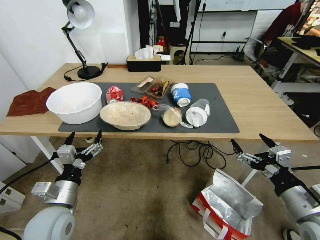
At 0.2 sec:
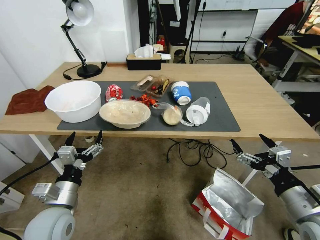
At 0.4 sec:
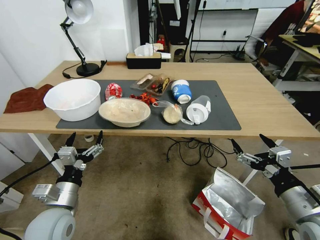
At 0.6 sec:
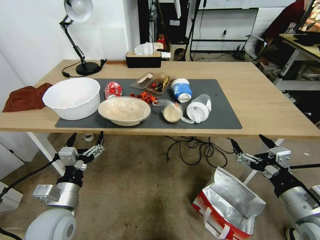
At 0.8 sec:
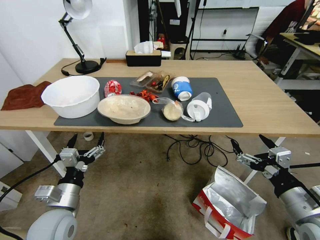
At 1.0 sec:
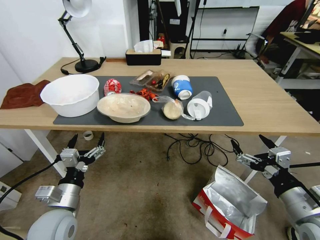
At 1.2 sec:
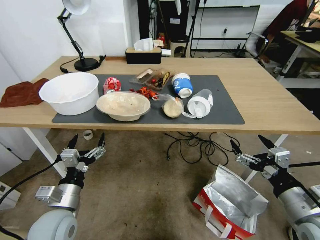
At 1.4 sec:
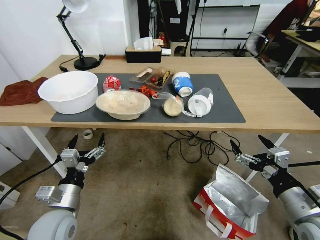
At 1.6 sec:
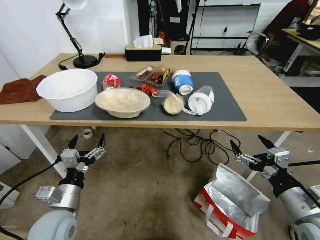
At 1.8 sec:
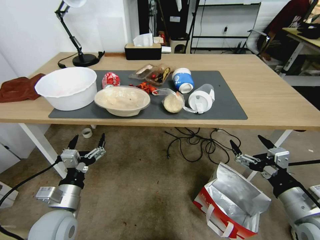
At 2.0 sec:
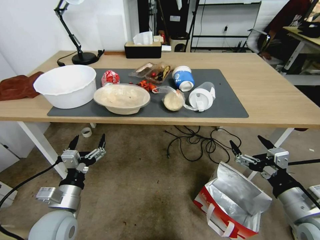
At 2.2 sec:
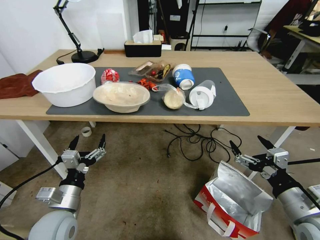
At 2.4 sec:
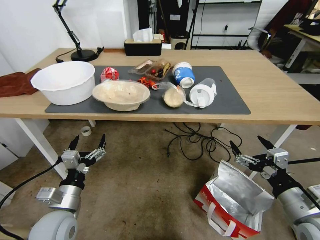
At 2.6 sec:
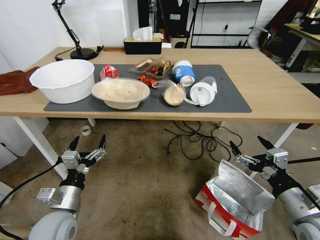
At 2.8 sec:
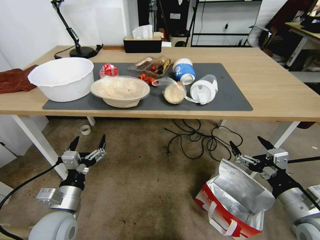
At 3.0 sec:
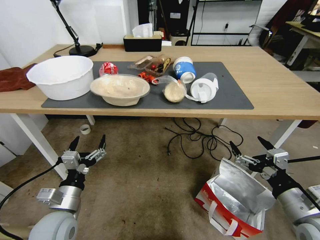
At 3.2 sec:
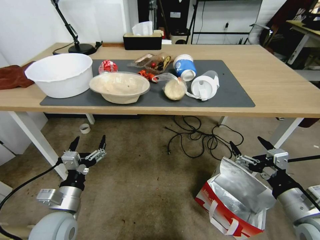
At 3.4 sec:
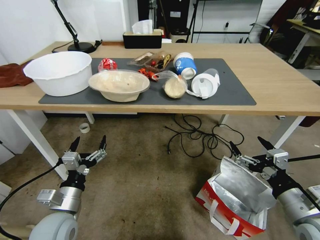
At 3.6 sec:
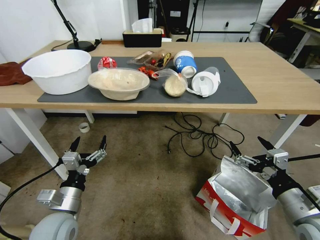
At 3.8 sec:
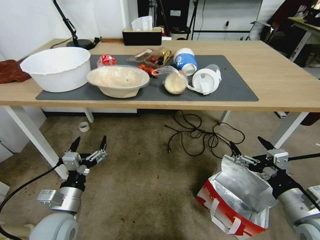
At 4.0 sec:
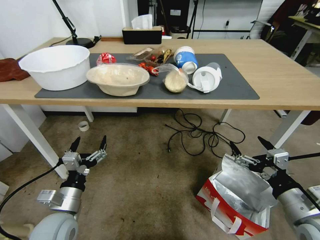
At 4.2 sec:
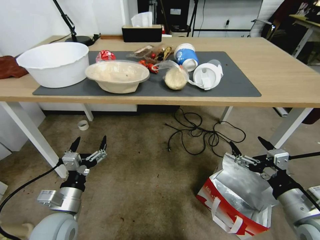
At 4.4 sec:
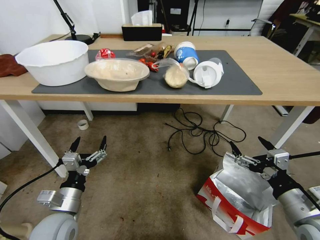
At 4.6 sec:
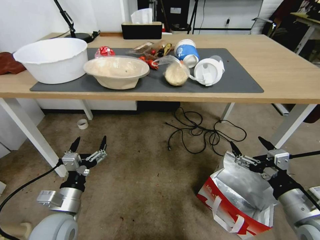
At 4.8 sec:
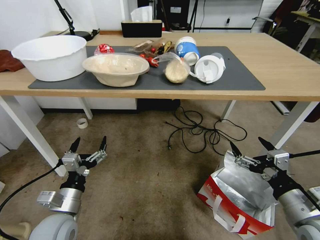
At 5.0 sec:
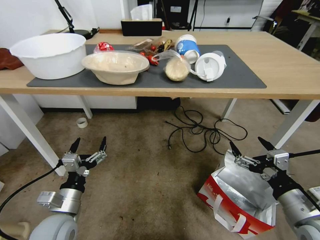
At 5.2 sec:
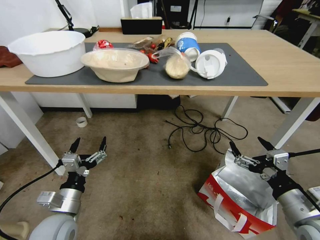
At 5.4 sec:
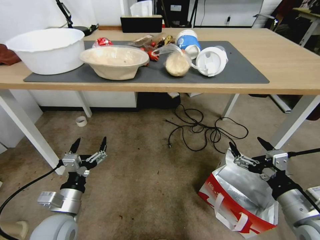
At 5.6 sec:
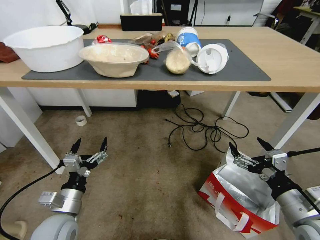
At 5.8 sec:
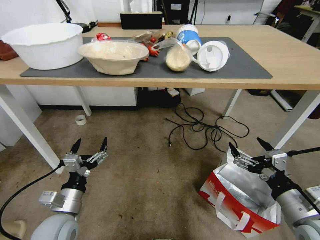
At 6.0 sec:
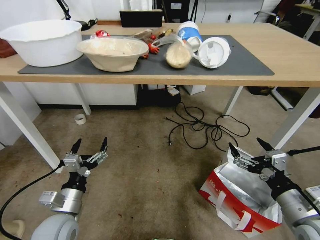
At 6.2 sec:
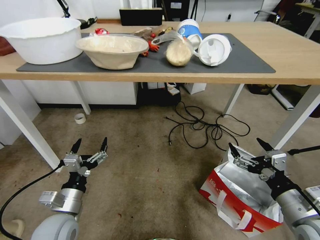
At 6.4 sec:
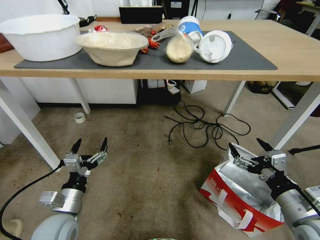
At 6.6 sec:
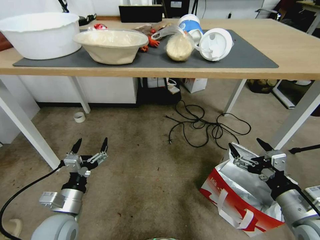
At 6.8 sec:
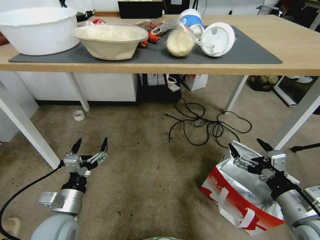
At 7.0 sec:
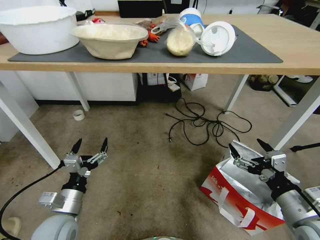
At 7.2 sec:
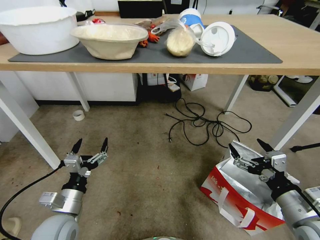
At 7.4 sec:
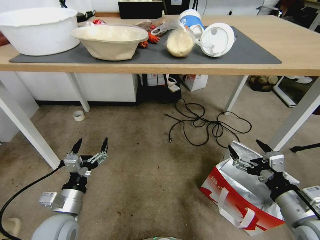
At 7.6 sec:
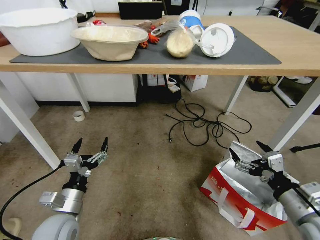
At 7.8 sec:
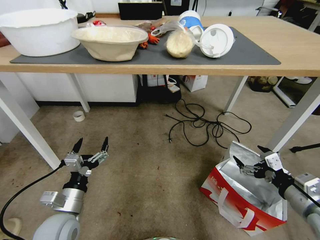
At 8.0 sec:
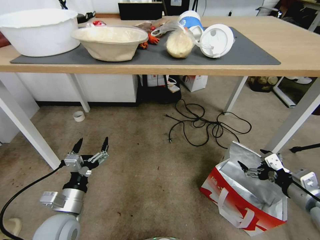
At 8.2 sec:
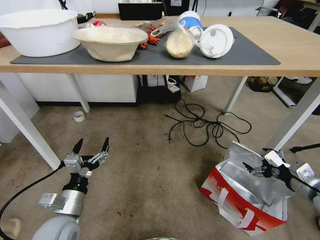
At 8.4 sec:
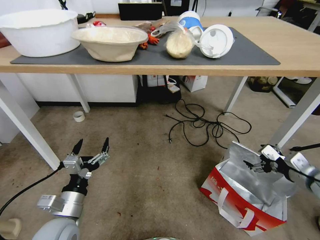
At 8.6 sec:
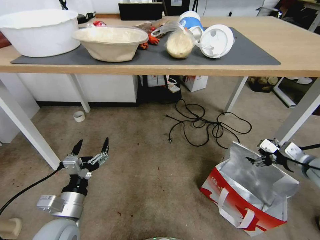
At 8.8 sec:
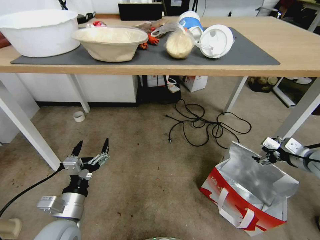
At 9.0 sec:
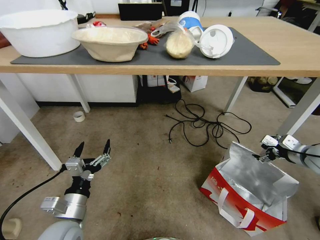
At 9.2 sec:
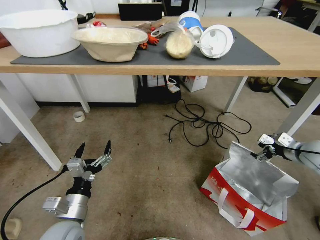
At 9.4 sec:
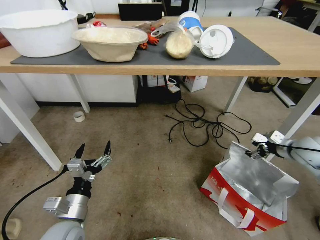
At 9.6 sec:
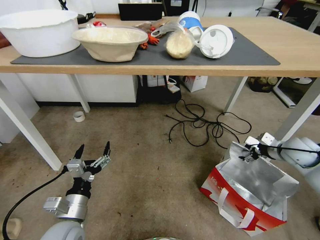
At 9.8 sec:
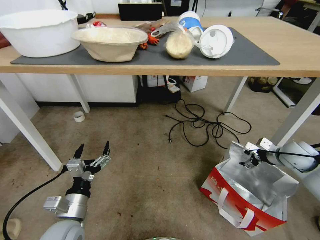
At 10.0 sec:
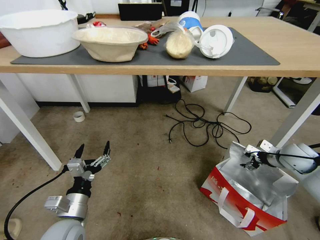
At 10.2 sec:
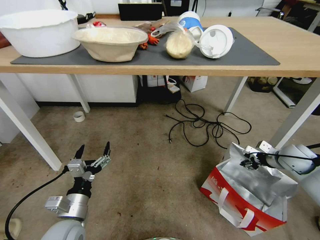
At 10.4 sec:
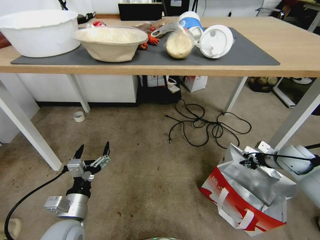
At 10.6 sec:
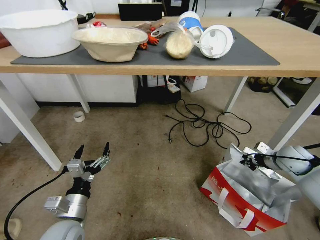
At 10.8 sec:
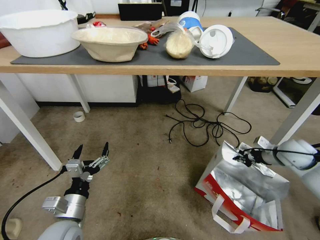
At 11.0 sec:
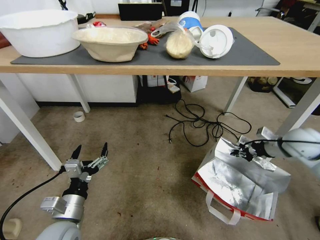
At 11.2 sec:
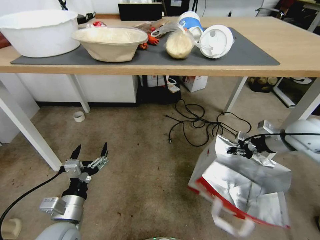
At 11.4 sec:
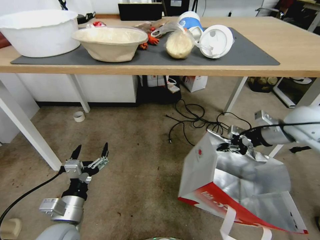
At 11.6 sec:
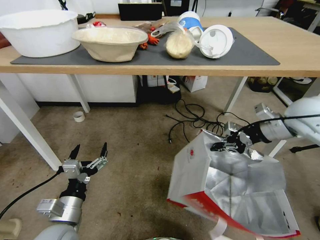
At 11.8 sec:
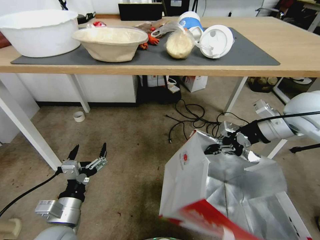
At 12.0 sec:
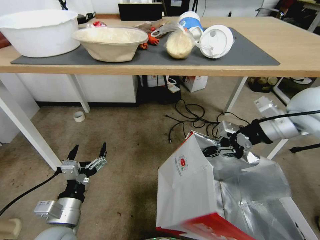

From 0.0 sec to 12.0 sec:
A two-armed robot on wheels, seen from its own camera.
Task of the whole recording: Pick up the food delivery bag from the floor and place it on the table.
From 7.6 sec to 9.0 sec: The right gripper heads forward and to the right, covering some 20 cm.
From 9.0 sec to 10.4 sec: The right gripper moves downward, approximately 10 cm, and closes.
From 10.4 sec to 12.0 sec: The right gripper travels upward and to the left by some 30 cm.

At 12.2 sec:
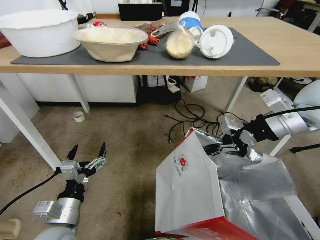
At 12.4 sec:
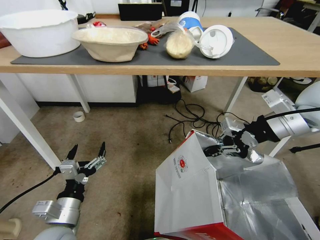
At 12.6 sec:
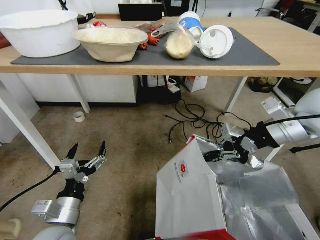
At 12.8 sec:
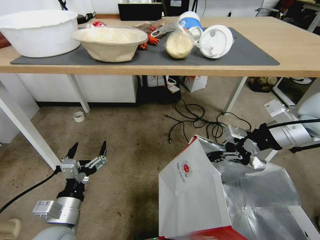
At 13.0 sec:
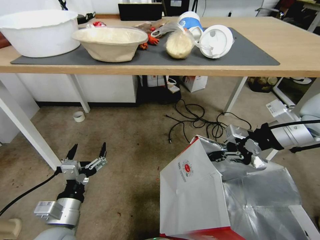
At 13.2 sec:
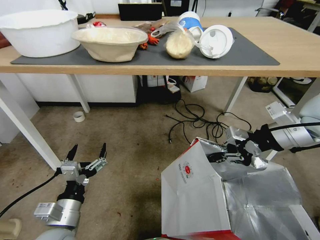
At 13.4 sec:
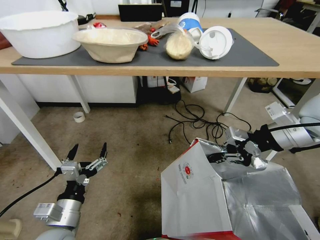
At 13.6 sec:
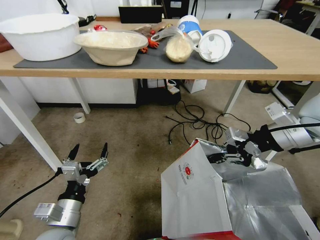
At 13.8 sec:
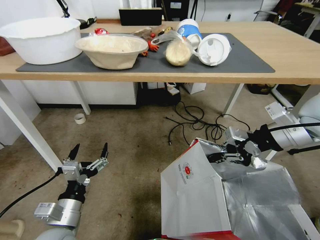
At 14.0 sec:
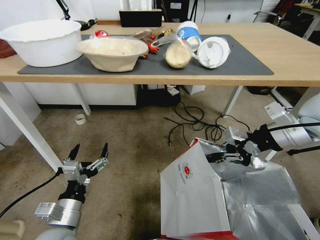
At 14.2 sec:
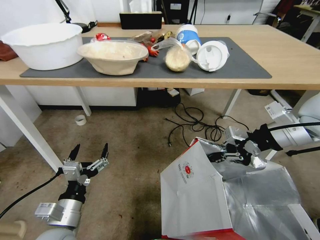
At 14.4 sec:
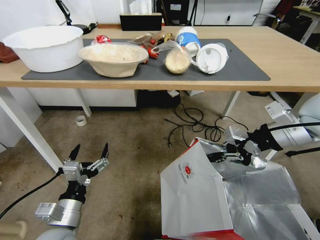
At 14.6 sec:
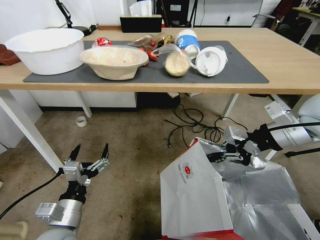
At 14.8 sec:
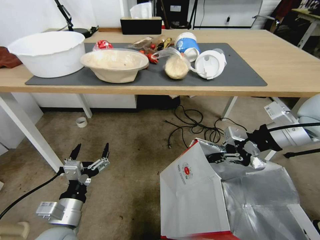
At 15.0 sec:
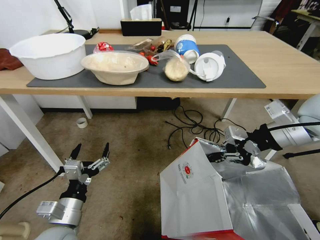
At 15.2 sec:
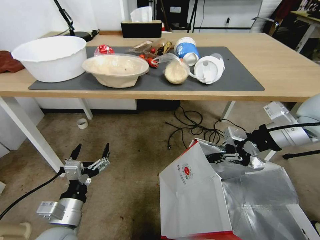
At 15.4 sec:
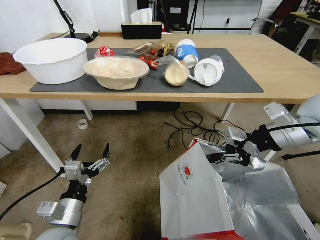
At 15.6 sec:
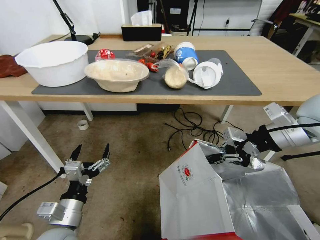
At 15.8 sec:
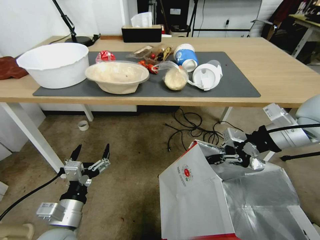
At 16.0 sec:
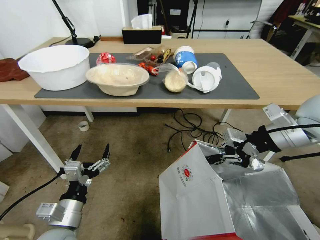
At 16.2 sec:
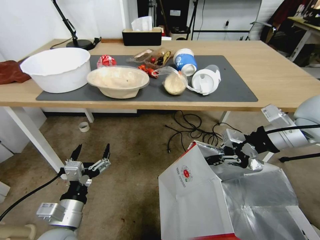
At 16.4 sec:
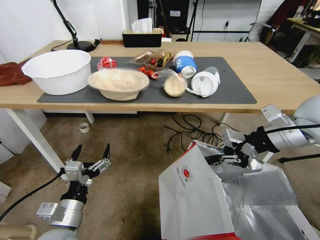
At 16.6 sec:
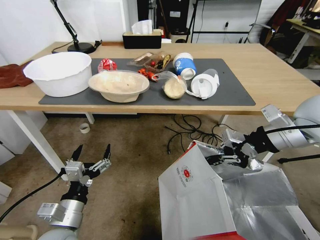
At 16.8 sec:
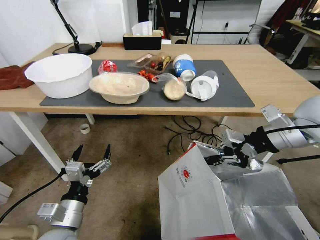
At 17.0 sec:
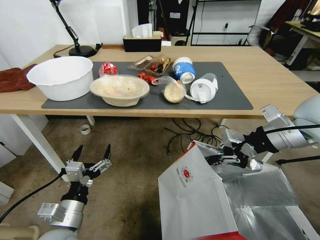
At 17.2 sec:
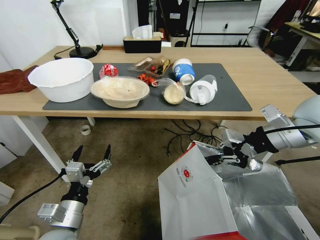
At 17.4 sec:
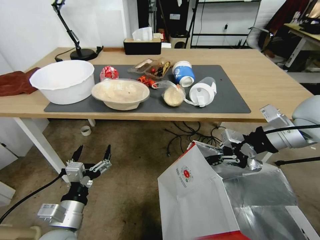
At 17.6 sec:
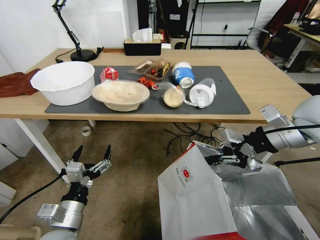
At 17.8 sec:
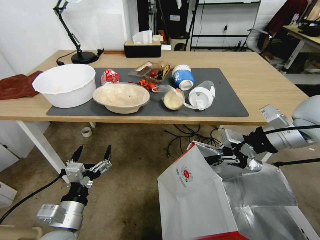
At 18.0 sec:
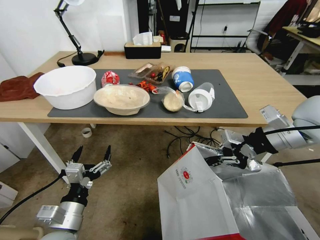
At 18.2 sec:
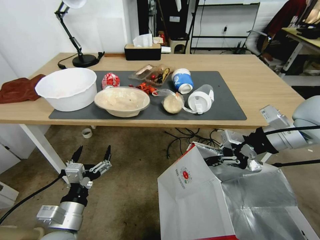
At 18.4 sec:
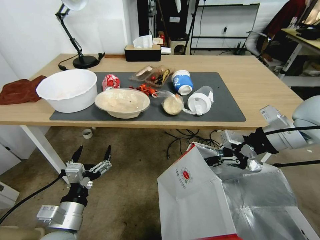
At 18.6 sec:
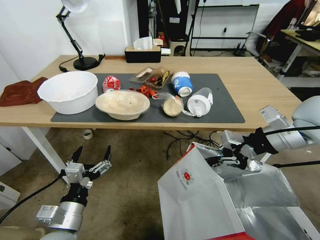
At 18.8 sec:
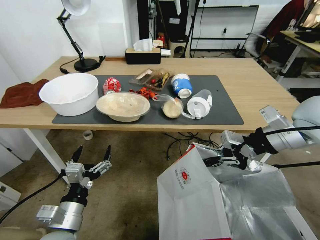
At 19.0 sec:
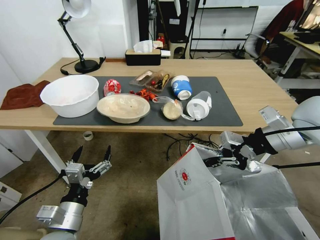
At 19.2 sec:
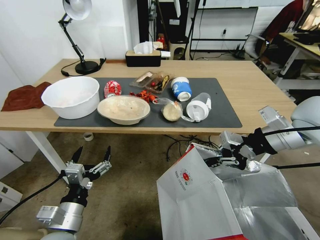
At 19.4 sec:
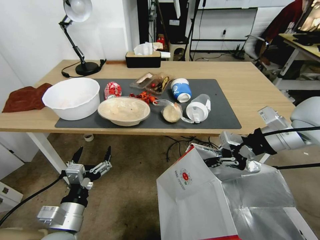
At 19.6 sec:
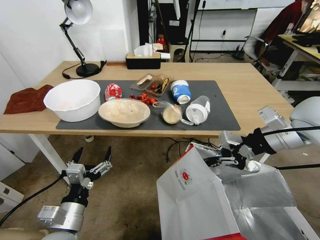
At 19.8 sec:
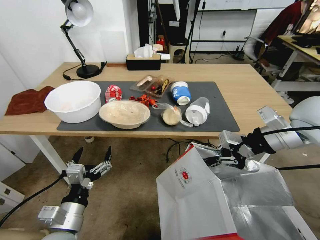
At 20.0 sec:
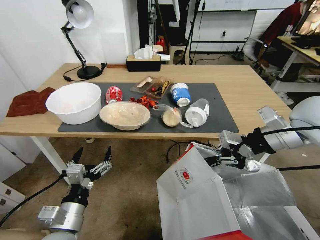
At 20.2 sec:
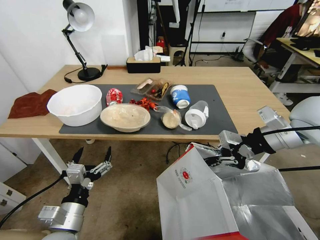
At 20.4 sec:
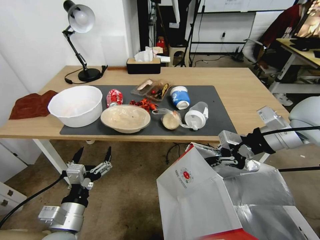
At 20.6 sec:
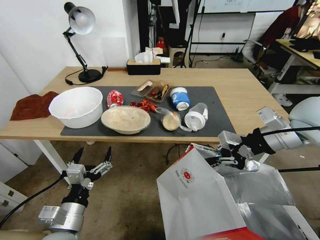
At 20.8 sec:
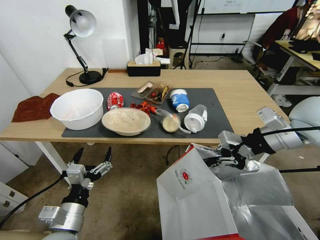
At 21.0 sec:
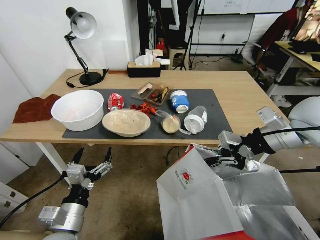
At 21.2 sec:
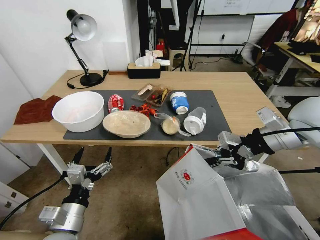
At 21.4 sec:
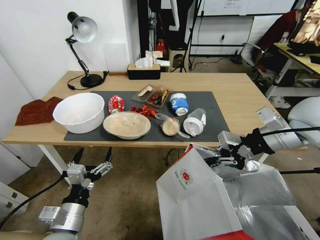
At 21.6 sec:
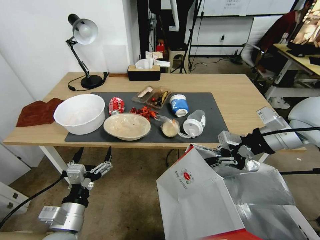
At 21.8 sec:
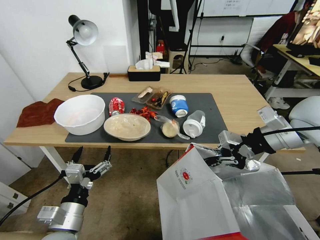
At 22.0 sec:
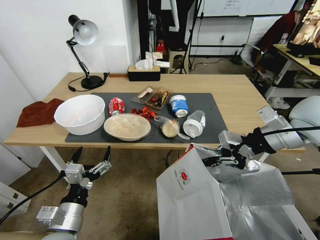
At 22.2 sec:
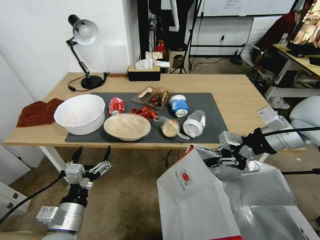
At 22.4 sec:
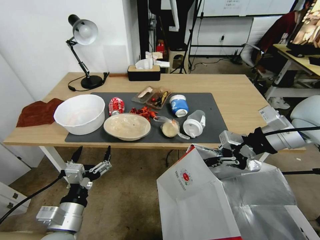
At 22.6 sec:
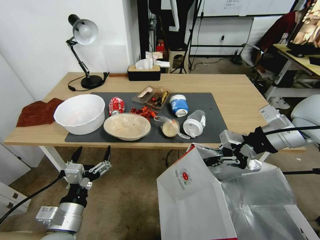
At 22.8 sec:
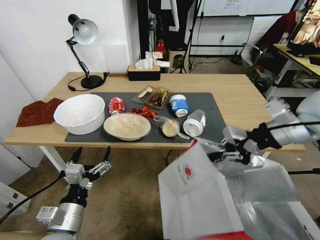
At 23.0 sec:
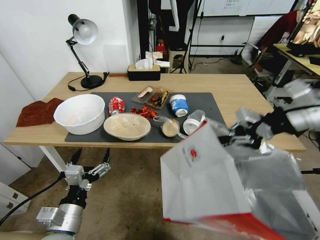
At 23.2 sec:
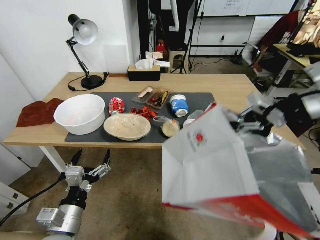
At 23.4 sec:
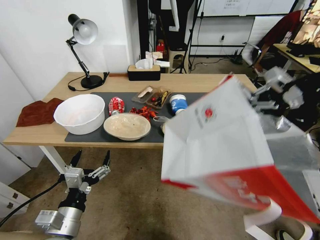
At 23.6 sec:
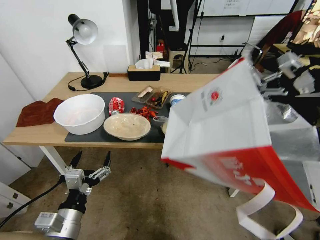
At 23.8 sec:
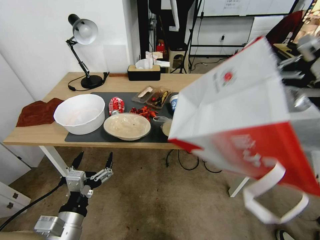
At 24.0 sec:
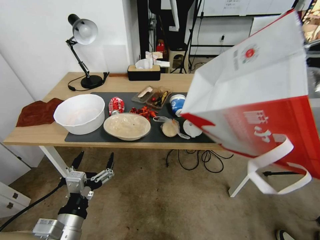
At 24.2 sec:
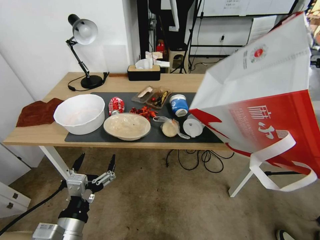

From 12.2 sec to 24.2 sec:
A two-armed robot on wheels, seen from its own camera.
Task of the whole recording: Pick up the food delivery bag from the floor and place it on the table.
From 22.6 sec to 24.2 sec: The right gripper moves upward and to the right, approximately 25 cm.
